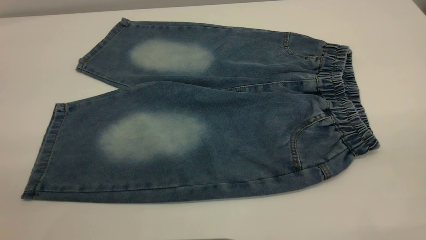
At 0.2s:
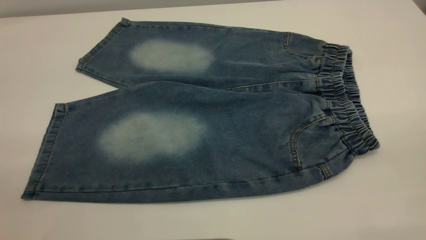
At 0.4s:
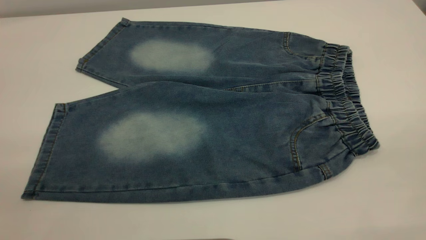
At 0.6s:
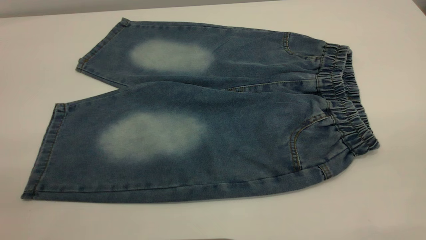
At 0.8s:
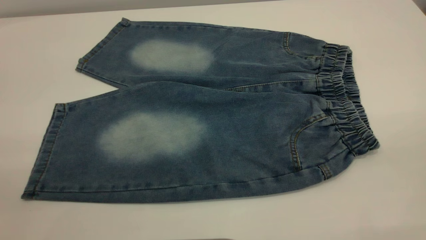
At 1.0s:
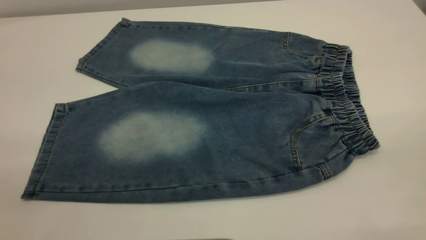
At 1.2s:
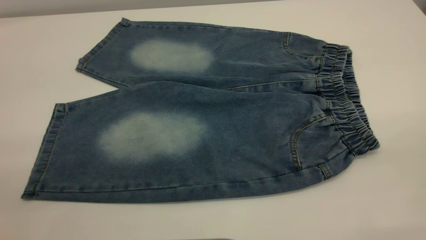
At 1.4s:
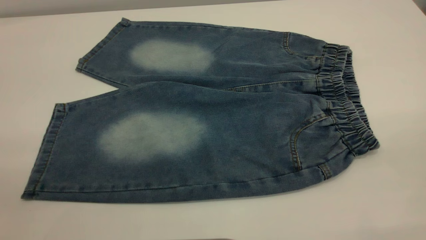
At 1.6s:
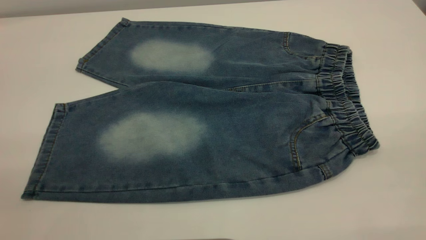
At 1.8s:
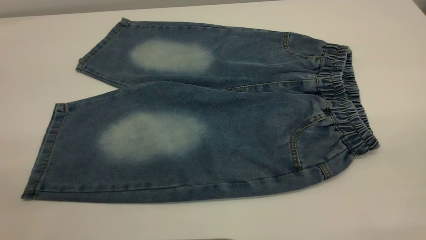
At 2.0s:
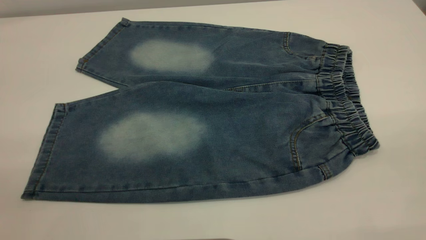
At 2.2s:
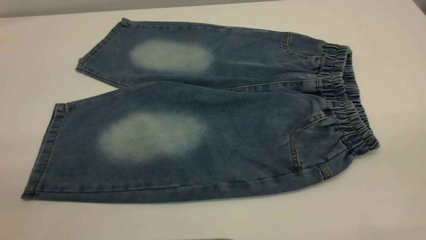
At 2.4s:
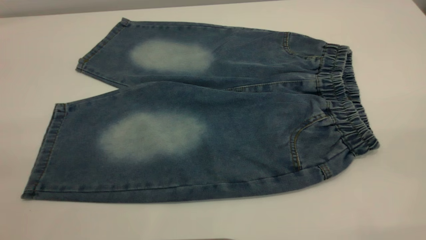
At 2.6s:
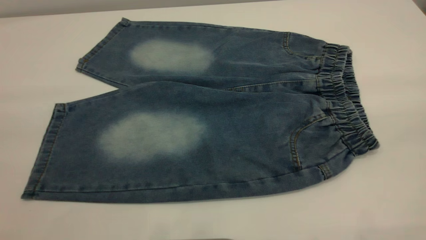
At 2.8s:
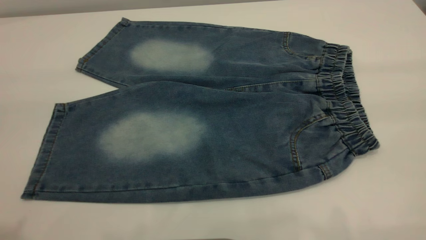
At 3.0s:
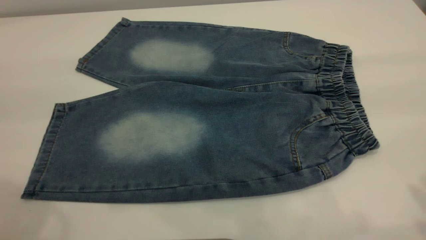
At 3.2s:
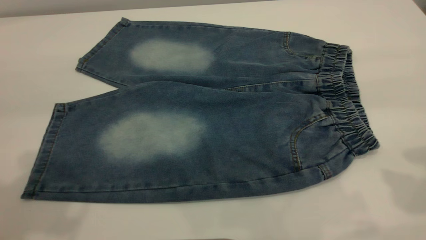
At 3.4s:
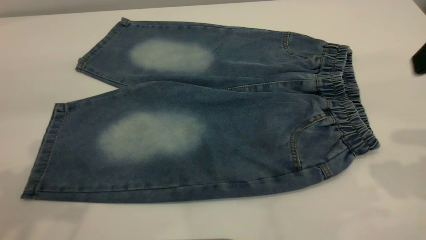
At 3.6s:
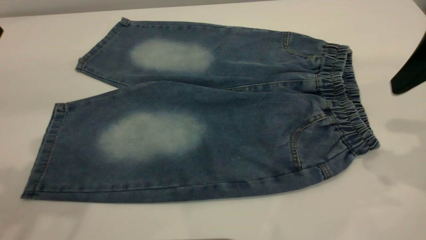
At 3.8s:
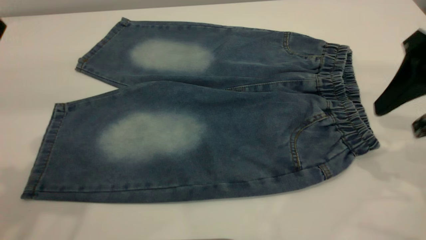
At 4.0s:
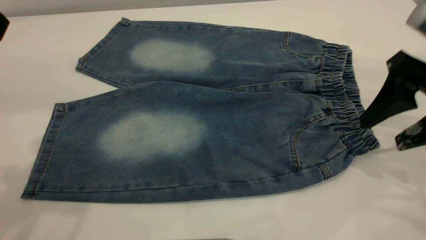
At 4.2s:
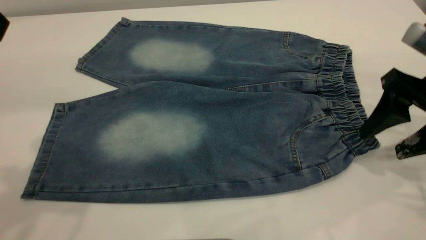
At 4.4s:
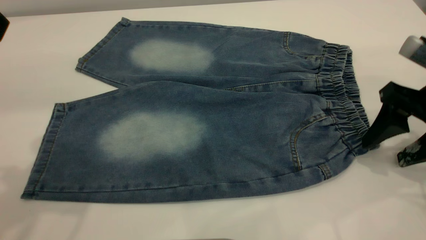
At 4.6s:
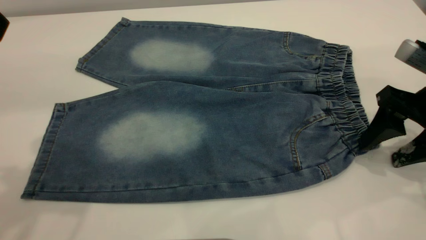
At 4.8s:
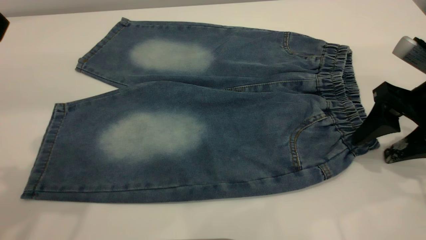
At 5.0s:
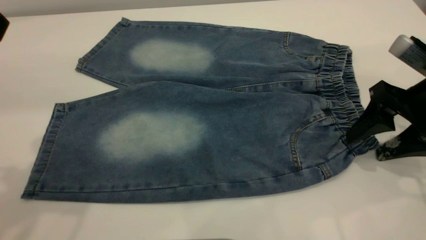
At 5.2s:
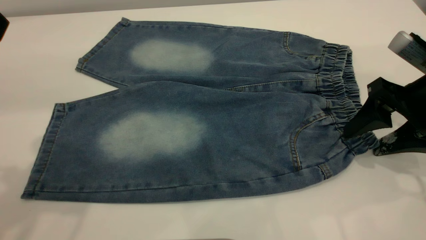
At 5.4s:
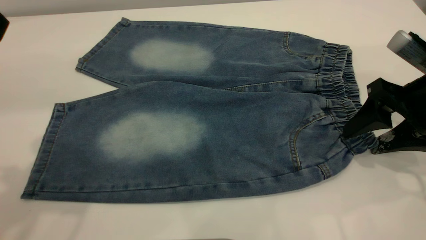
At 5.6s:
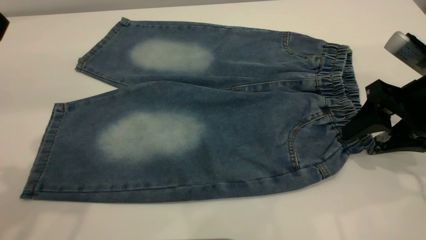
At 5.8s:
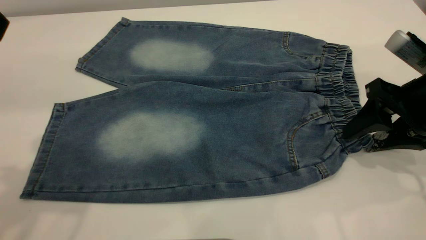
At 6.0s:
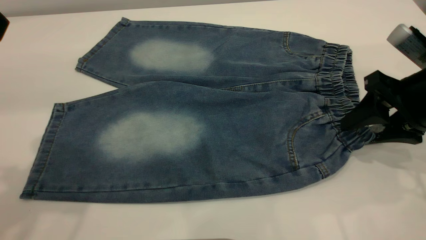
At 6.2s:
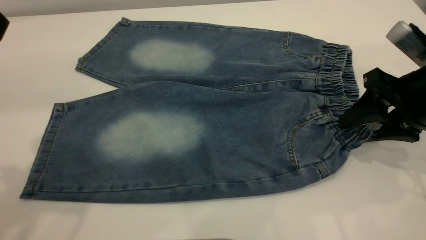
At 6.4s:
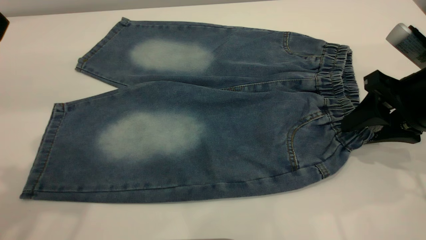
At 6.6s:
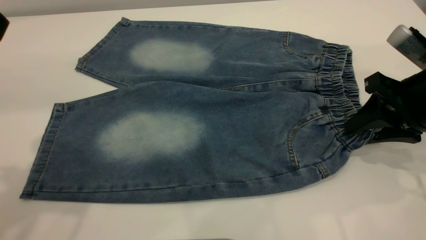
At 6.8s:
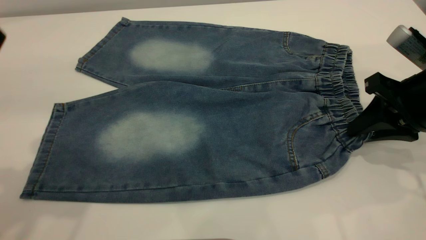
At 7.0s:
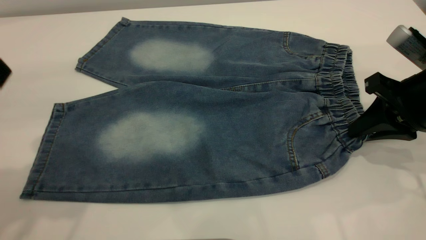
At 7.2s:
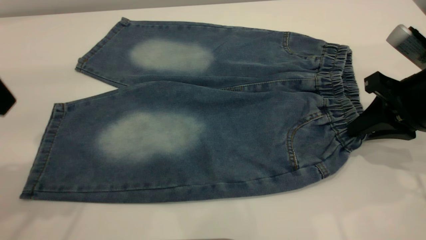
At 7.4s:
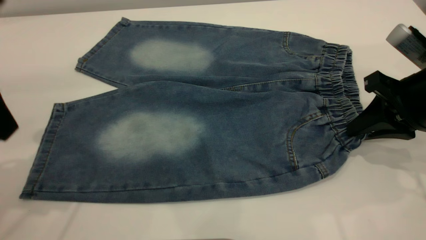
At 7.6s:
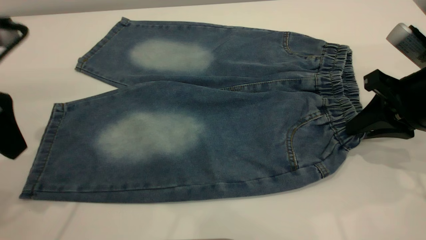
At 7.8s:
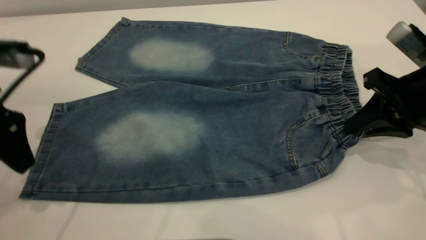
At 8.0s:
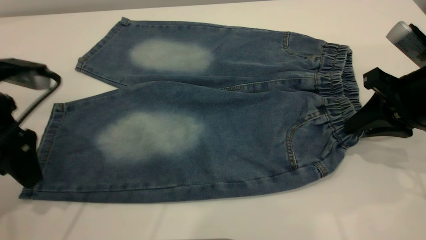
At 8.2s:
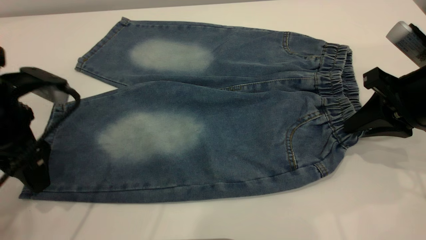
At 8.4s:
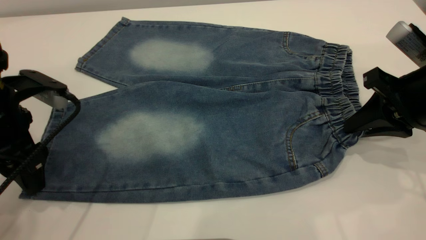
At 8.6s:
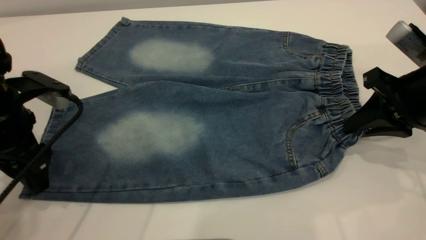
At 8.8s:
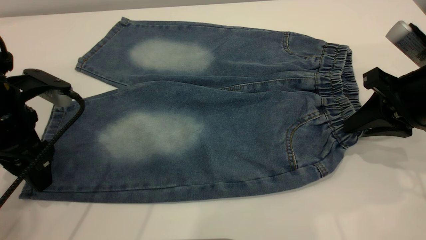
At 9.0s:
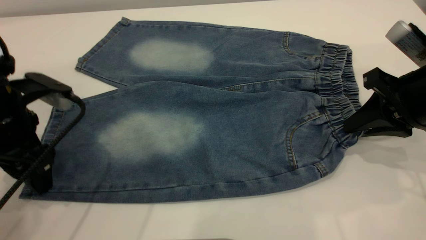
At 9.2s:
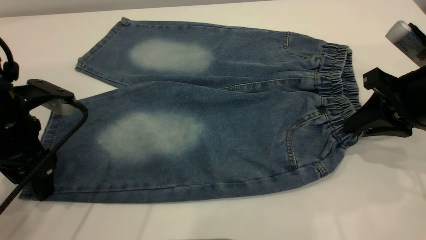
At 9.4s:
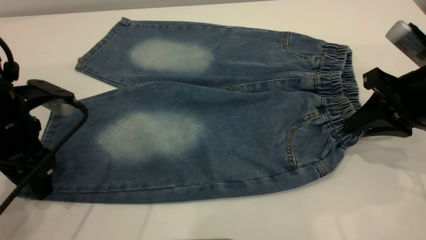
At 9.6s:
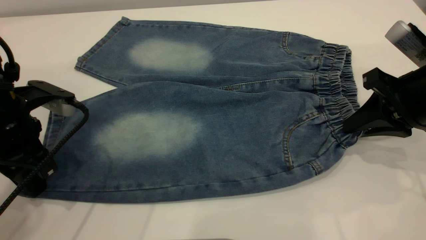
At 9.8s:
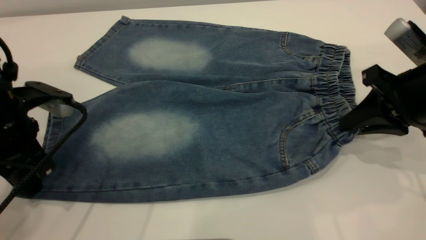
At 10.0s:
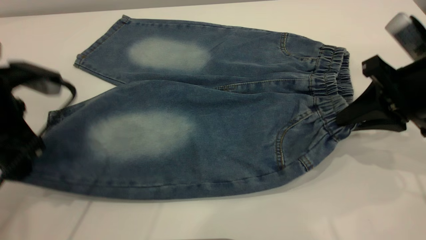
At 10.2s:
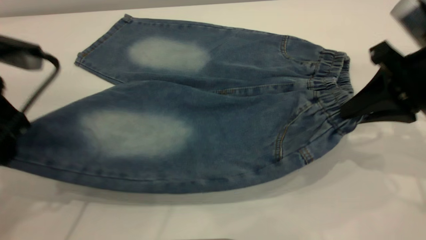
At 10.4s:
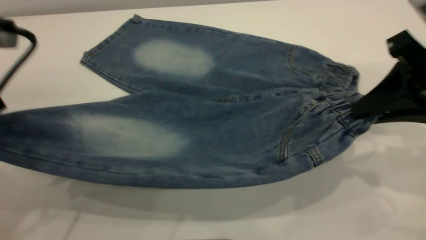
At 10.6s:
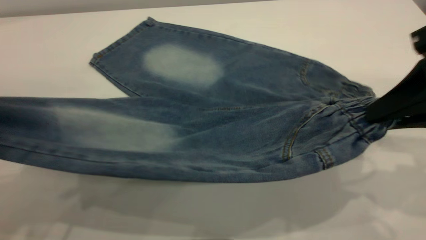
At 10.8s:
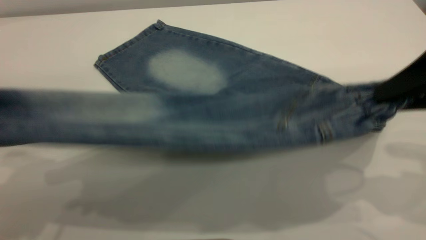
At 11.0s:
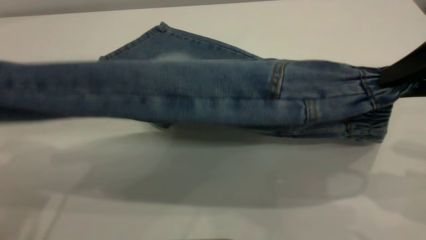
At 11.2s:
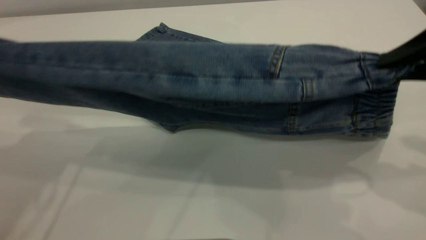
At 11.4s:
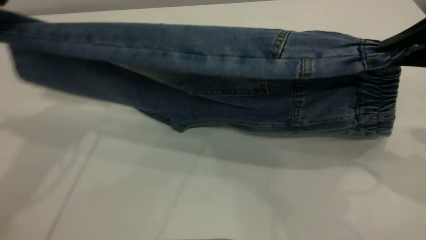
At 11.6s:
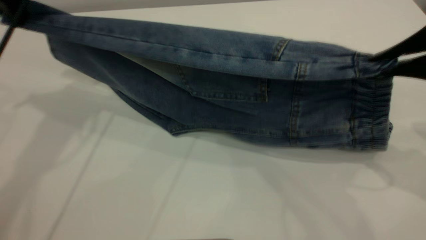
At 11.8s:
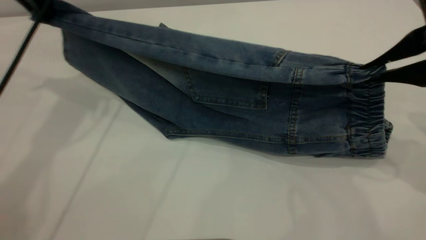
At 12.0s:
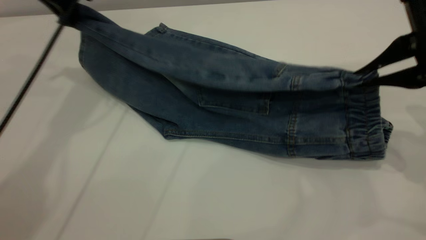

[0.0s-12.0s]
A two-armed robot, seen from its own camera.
0.0s to 1.6s: Both grippers stay about where they are.
3.0s to 4.4s: The right gripper travels downward and forward by approximately 20 cm. Meanwhile the left gripper travels forward by approximately 5 cm.
4.4s to 6.0s: The grippers stay close to where they were, moving slightly.
6.0s to 7.6s: The right gripper closes. Meanwhile the left gripper shifts approximately 15 cm downward.
7.6s to 9.0s: The left gripper moves downward, about 10 cm.
9.0s to 10.4s: The left gripper shifts about 10 cm upward, and closes. Meanwhile the right gripper goes roughly 5 cm upward.
10.4s to 12.0s: The left gripper moves forward, roughly 20 cm.

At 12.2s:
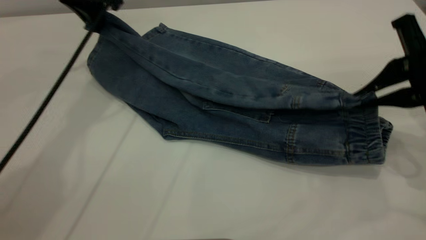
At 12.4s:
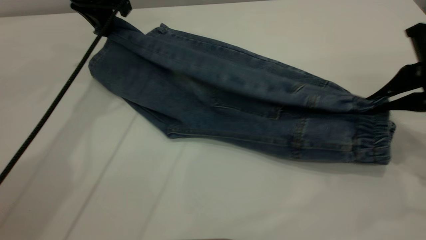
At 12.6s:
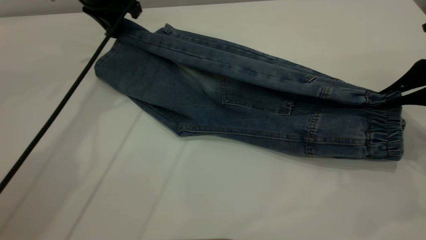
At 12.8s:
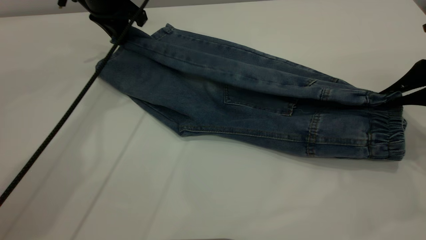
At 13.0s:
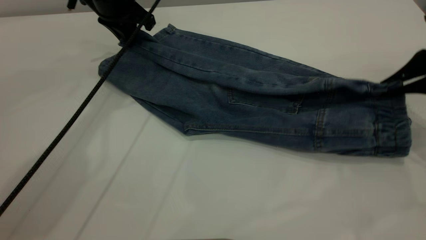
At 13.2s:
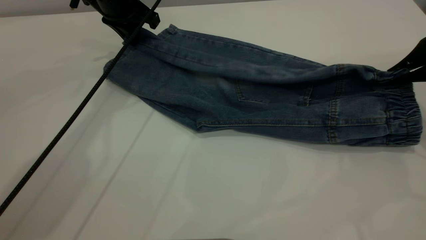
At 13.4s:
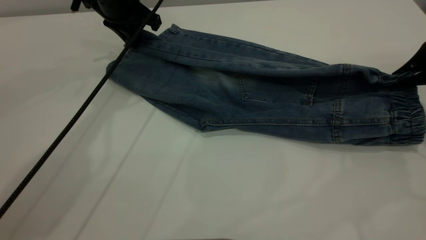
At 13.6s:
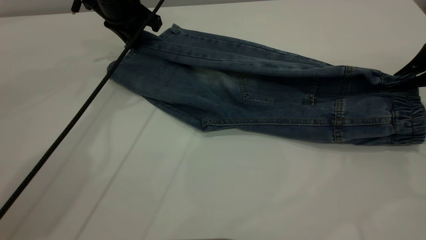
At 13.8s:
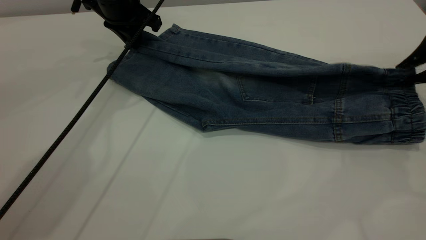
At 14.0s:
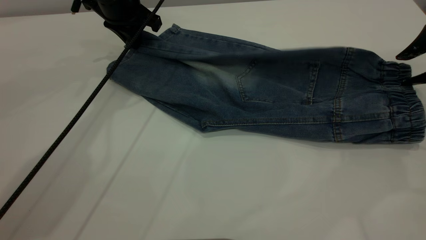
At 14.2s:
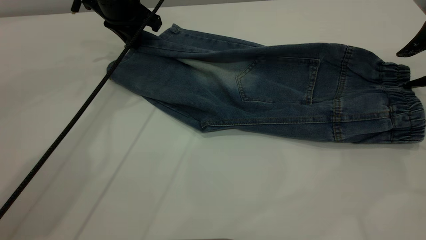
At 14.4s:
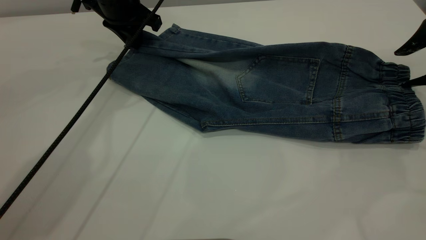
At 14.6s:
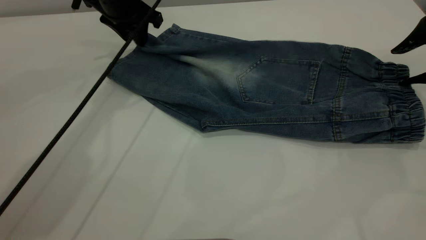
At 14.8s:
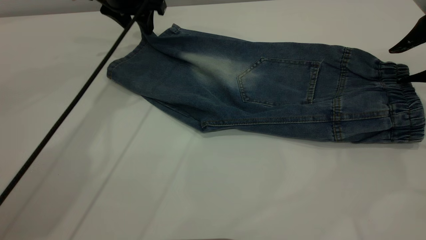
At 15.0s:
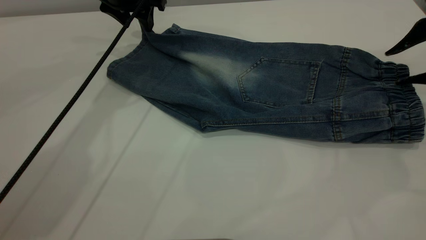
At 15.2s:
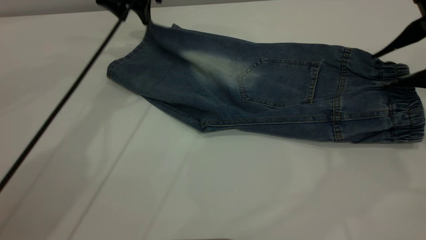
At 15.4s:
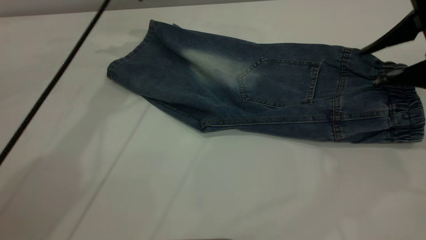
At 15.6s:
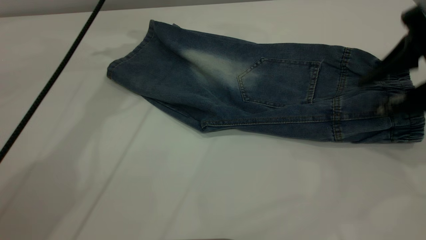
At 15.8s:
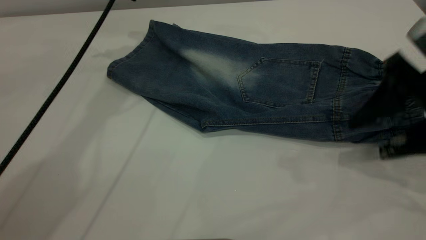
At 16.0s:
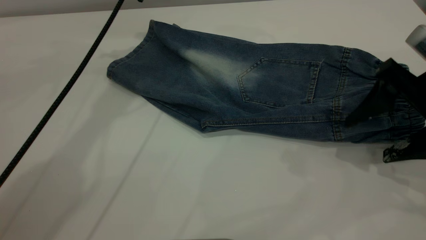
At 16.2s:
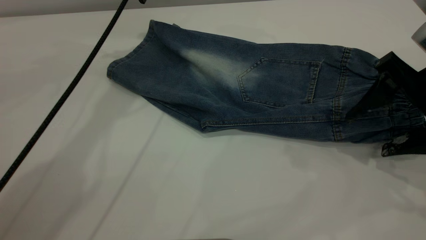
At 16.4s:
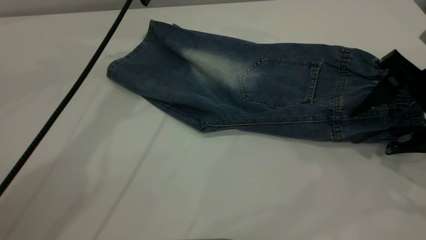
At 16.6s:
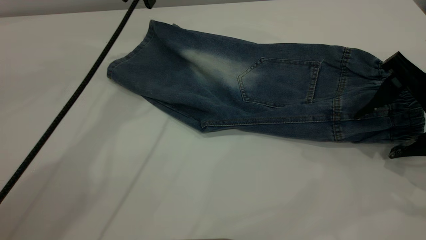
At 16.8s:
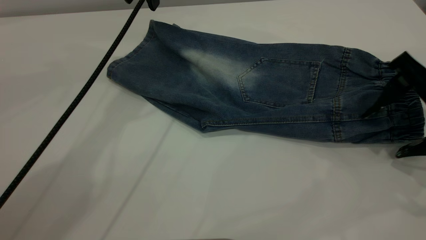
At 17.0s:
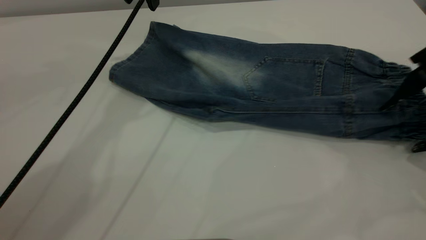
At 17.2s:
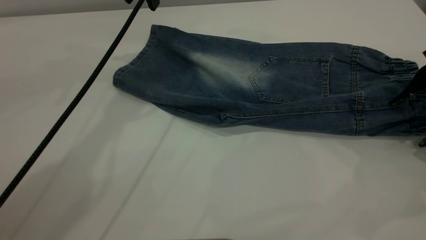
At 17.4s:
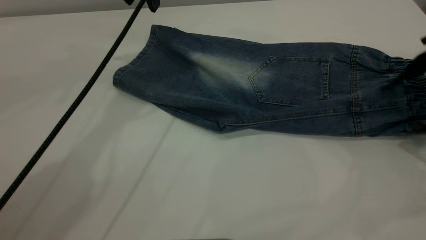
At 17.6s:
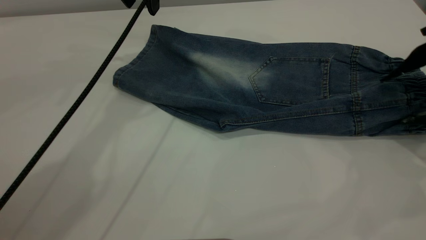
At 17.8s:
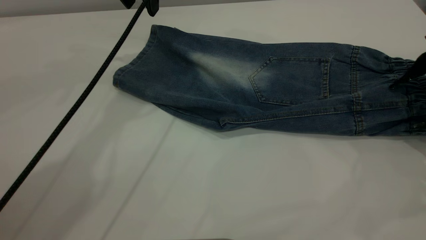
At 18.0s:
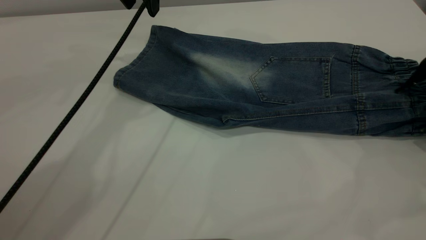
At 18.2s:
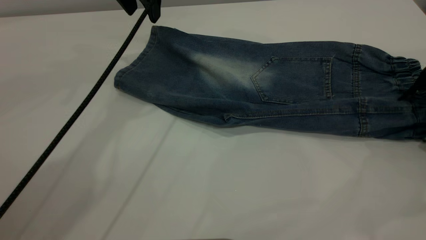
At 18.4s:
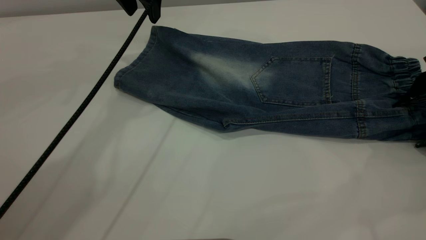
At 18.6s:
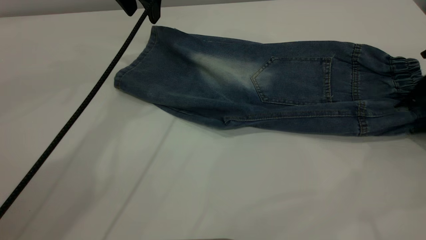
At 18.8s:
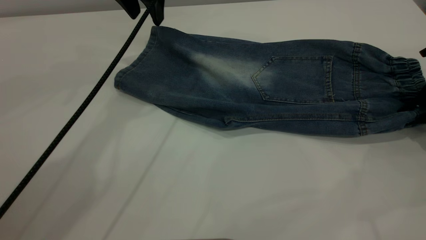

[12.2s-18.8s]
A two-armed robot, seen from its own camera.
Step, 12.2s to 15.4s: Fold the bottom of the pants upward.
12.2s to 13.8s: The left gripper moves downward, about 5 cm; the right gripper shifts some 5 cm to the right.
13.8s to 15.4s: The left gripper shifts some 10 cm upward, and opens.
15.4s to 17.2s: The right gripper ends up some 5 cm from where it was, and opens its fingers.
17.2s to 18.8s: The right gripper closes.
